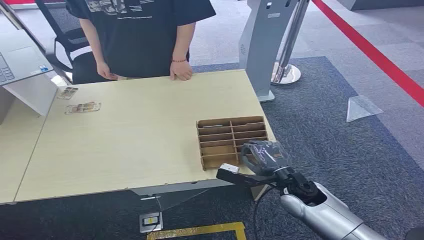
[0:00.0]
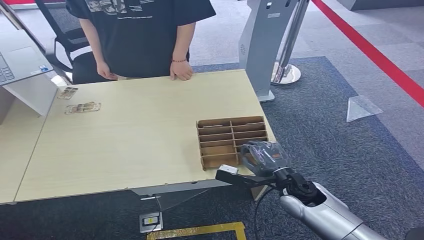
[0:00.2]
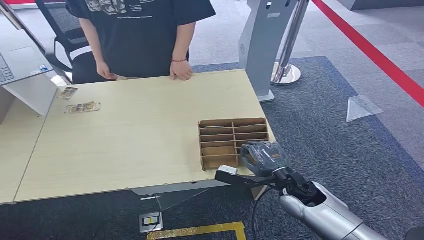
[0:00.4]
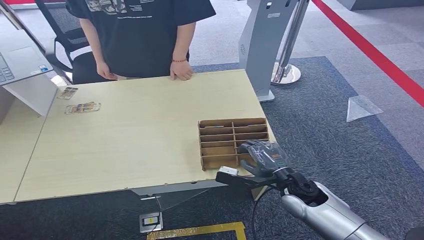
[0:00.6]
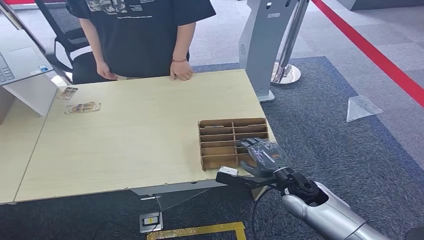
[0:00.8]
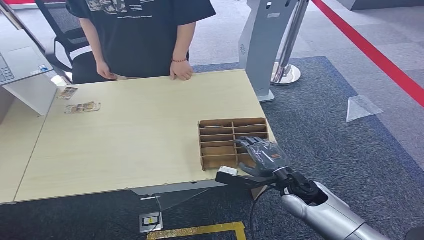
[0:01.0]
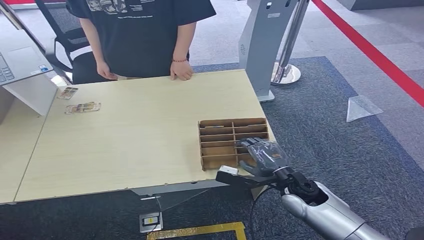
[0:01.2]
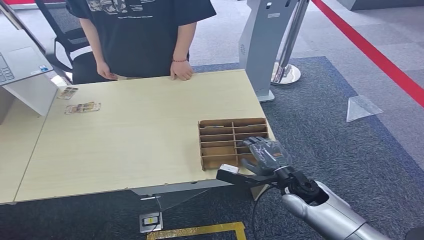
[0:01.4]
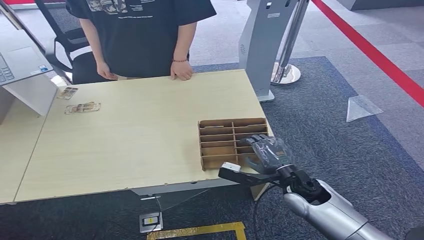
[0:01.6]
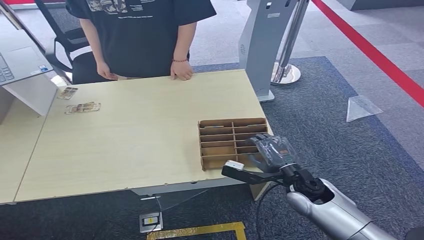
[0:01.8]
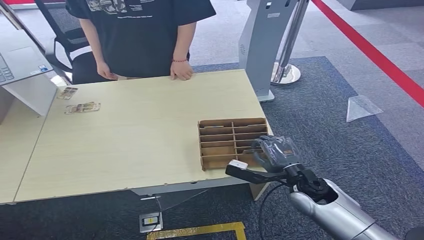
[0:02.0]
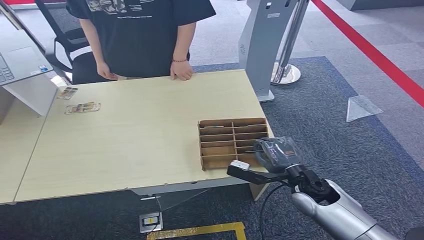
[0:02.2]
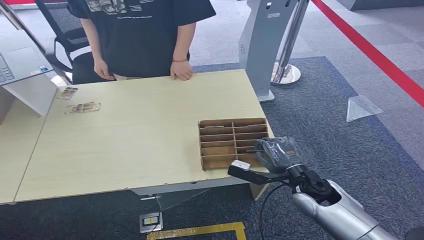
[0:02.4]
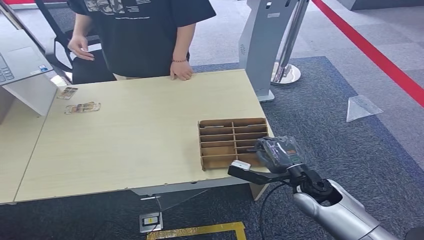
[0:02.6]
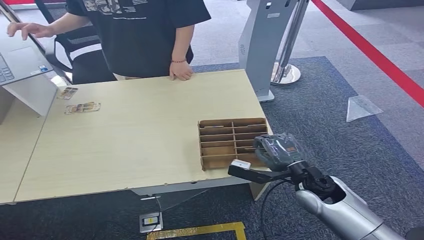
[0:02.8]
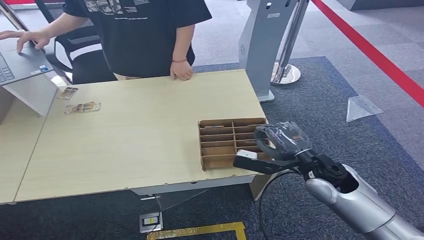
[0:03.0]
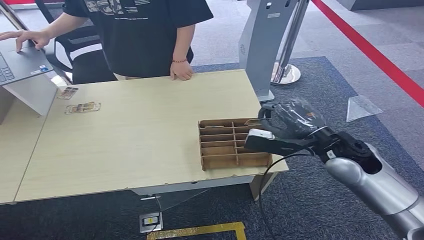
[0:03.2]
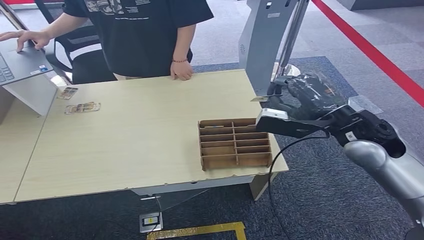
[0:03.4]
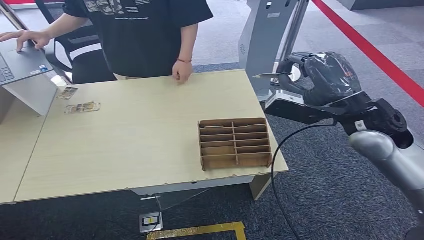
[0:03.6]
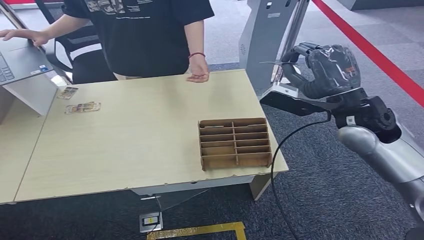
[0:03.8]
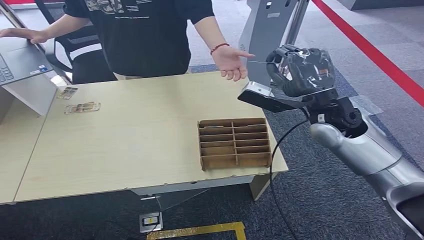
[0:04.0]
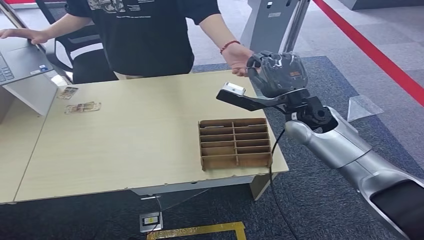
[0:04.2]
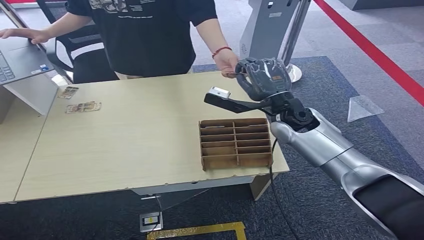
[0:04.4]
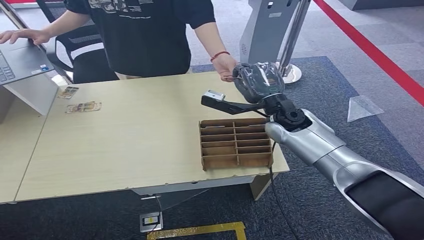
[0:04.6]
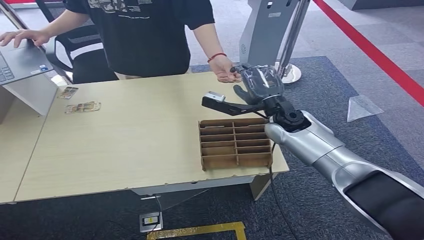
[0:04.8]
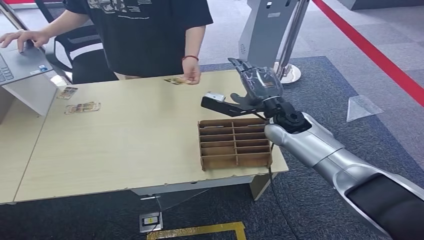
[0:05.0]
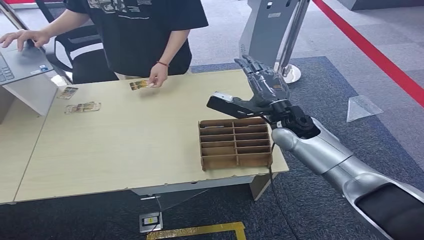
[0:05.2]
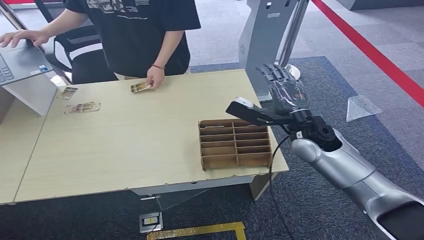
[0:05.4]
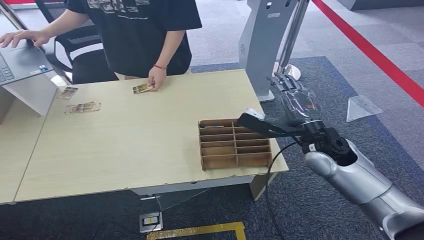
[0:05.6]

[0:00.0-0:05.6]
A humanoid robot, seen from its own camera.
Step, 0:00.0 to 0:03.0: Pick up the room card from the card holder.
Step, 0:03.4 to 0:05.6: Hand the room card to the target.
0:01.4 to 0:02.8: There are only small adjustments of the hands.
0:04.2 to 0:05.6: The right hand shifts about 10 cm backward and downward.
